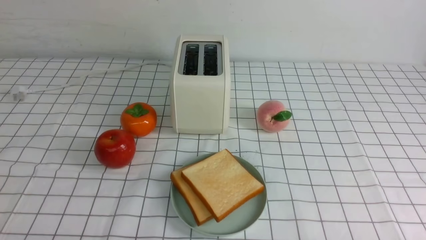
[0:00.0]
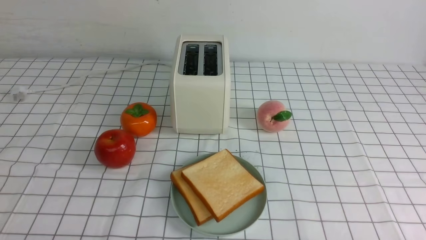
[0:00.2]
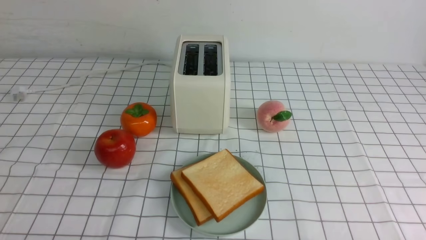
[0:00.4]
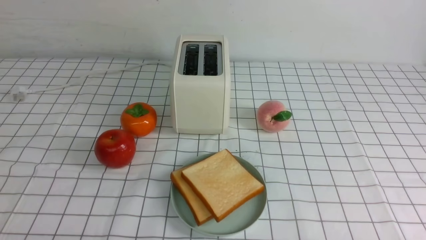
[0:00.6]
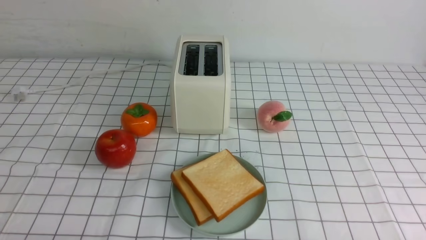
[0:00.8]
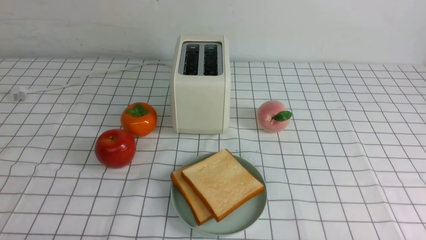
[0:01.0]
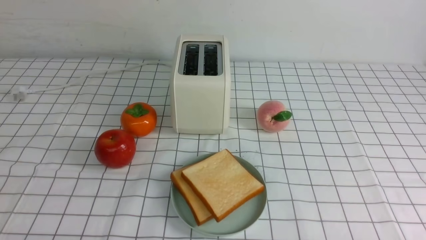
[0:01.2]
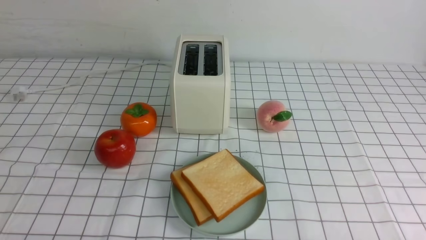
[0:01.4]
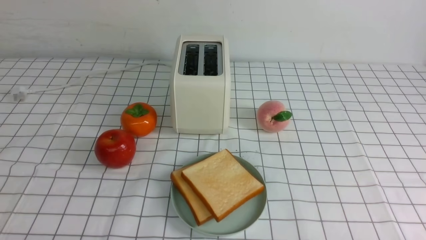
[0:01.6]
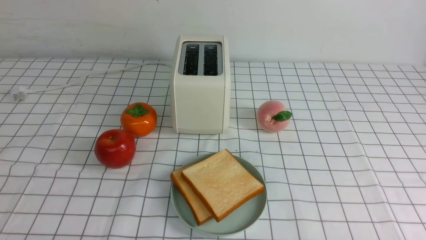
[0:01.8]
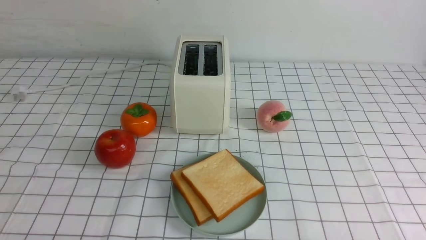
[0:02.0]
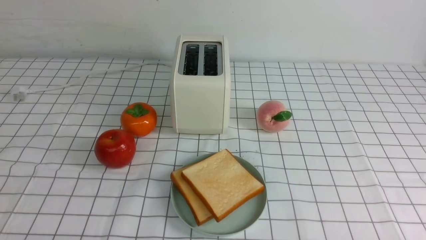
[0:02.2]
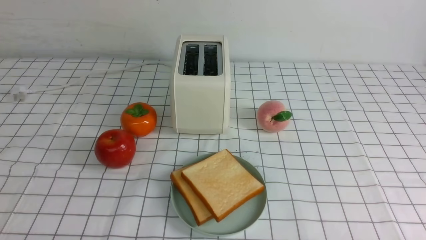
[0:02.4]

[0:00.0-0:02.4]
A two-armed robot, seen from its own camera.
Task of the whole recording: take toasted bread from bread machine on white checkered table place on plate.
0:01.2 to 0:02.4: Neither gripper changes place.
